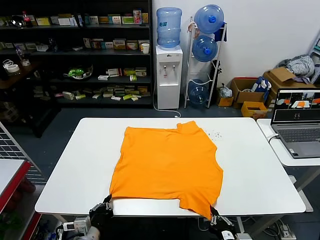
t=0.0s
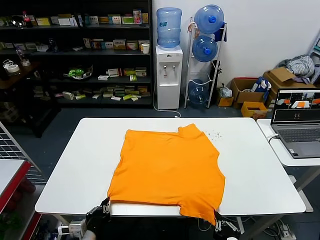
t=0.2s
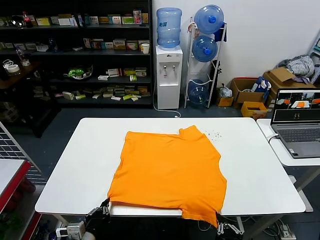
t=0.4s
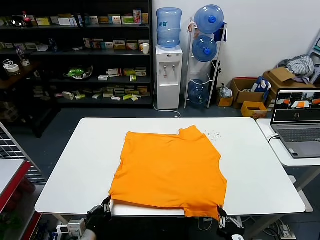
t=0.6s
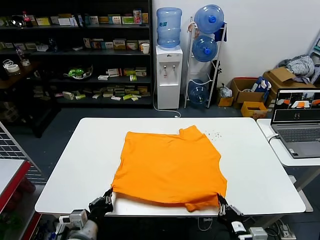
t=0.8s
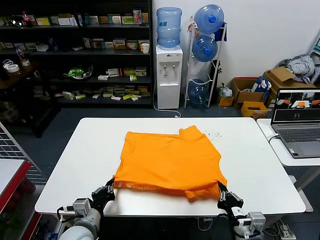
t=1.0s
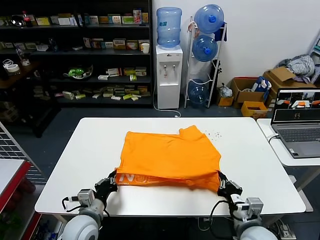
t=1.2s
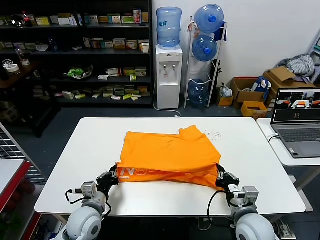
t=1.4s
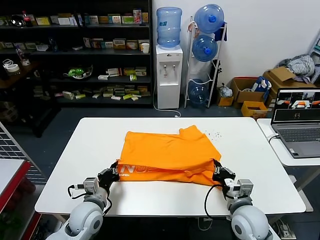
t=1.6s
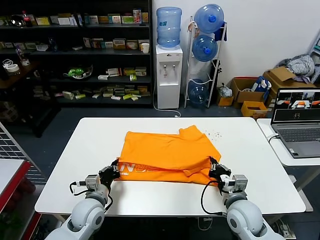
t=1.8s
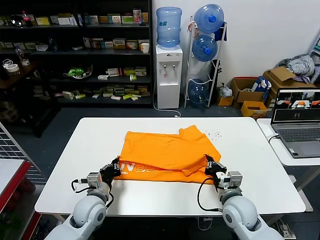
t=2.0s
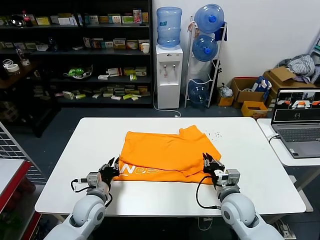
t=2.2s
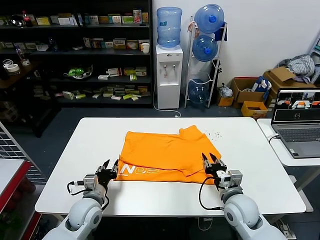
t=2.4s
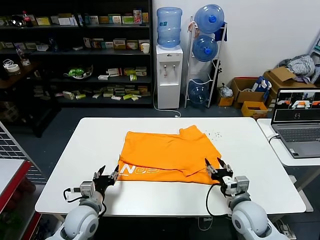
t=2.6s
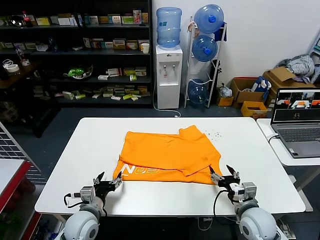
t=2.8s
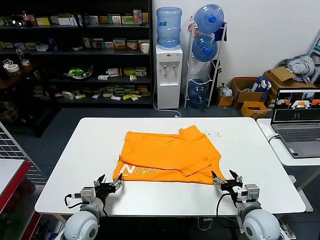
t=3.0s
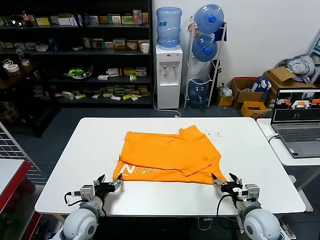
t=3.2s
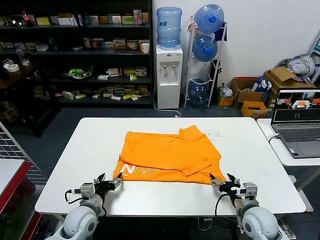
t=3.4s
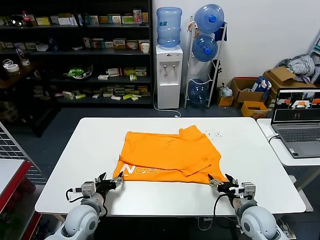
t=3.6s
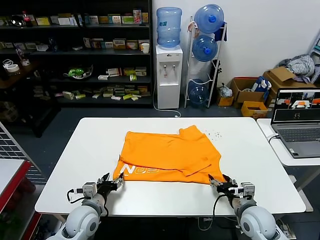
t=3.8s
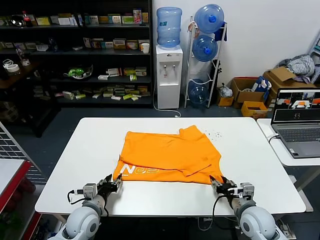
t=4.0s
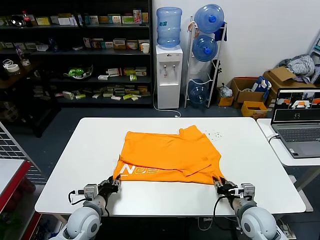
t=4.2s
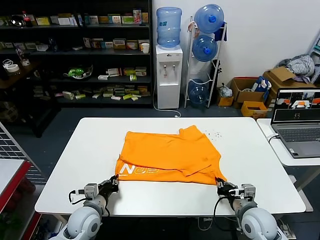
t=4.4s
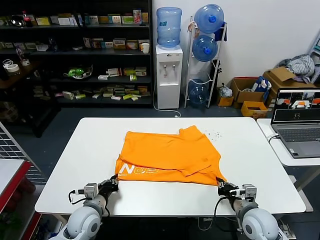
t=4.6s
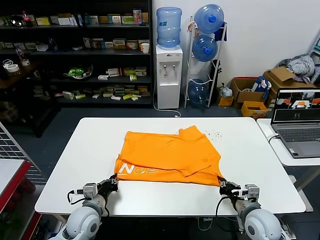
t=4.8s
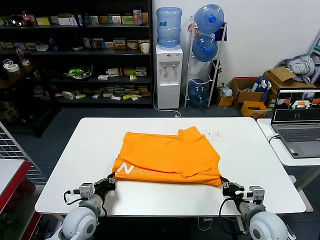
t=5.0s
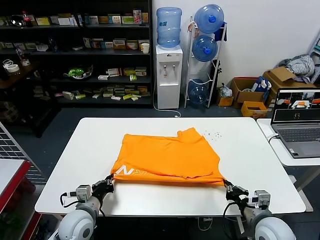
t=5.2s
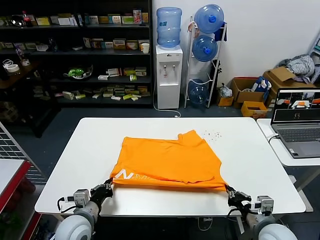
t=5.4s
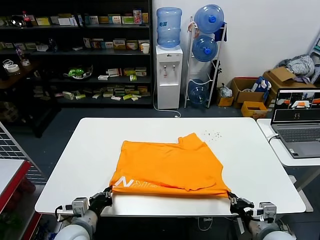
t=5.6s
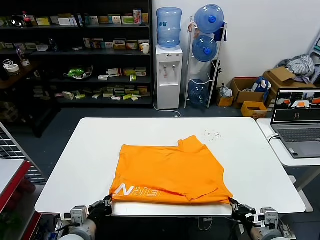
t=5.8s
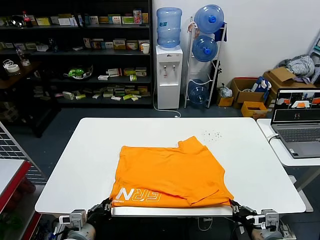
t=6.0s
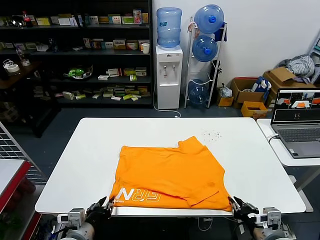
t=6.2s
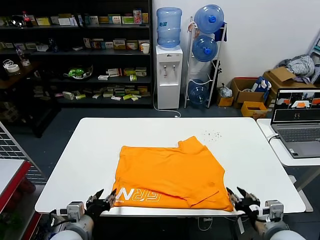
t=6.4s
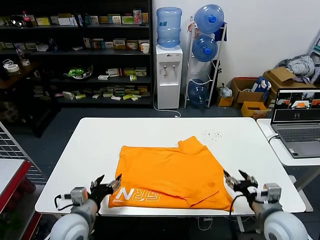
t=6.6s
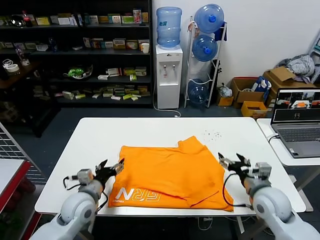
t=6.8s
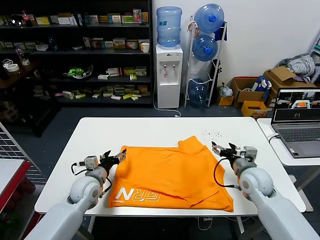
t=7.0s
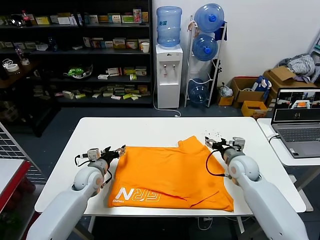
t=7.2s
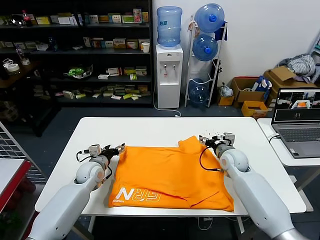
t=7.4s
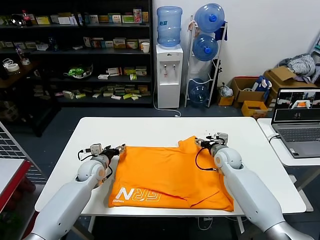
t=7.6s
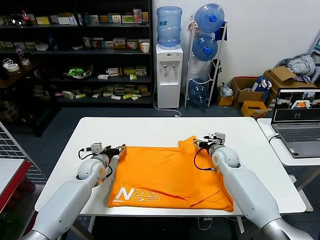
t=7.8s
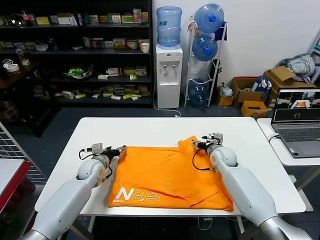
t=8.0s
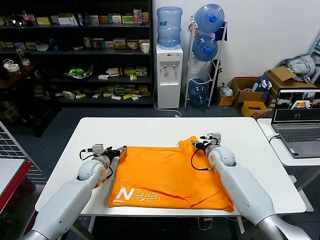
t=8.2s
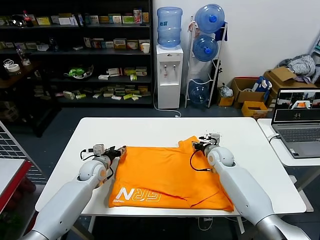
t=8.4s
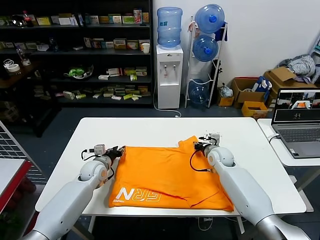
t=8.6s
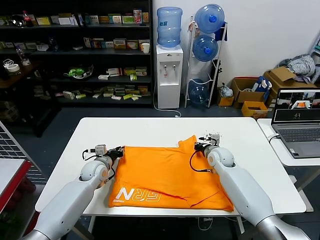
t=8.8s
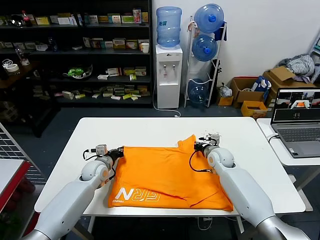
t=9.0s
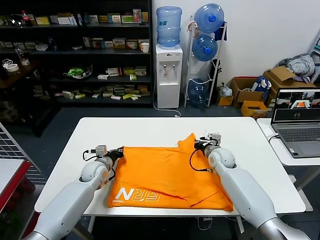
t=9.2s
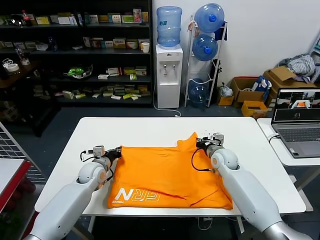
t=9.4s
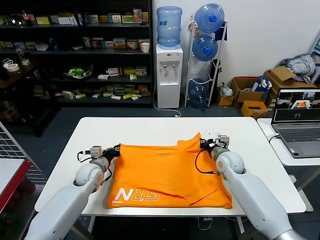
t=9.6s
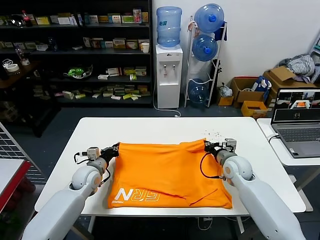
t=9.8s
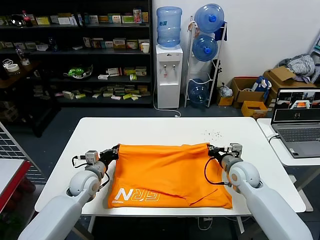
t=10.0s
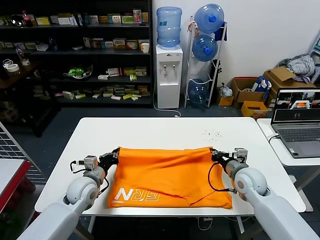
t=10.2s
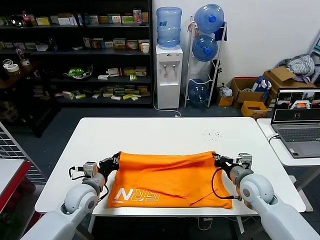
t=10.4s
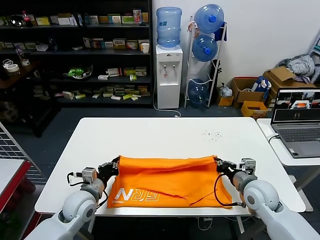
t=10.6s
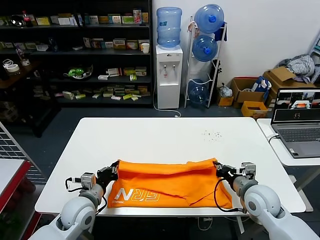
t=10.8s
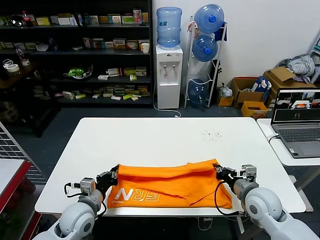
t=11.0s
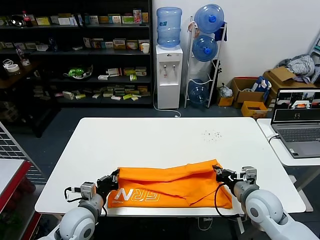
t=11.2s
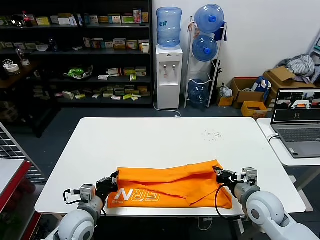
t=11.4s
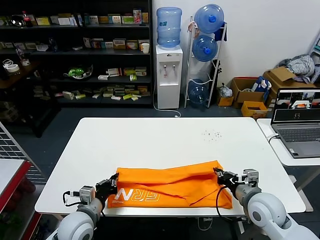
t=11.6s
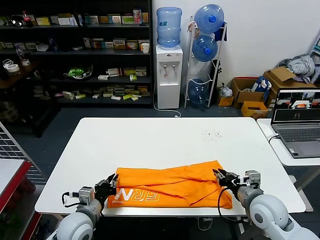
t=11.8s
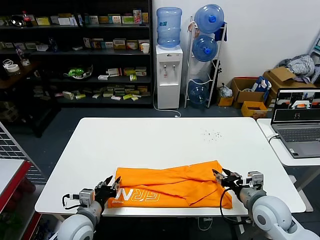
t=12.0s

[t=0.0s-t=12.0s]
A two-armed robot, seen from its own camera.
Task of the whole recording: fold and organize the clothes.
Step, t=0.0s to t=2.2s: use both grippers to drag the lower edge of the fabric forward and fold it over the upper edge.
Step, t=2.4s to t=6.2s: Drag the clothes downward with both gripper.
Step, t=6.4s to t=9.0s: use both grippers simultaneously to clamp the upper edge of the clothing fabric.
Step, t=9.2s to t=11.8s: use both grippers to drag the upper edge of the fabric backward and fold it over the lower edge.
t=0.0s to t=1.6s: The grippers both shift forward by some 15 cm.
t=1.6s to t=3.0s: The left gripper opens. The right gripper shifts about 5 cm to the right, and opens.
t=3.0s to t=4.4s: The right gripper closes; the left gripper closes.
t=4.4s to t=6.0s: The right gripper travels backward and upward by roughly 10 cm. The left gripper heads backward, covering about 10 cm.
t=6.0s to t=7.6s: The two grippers go roughly 30 cm forward. The right gripper opens its fingers. Meanwhile the left gripper opens up.
t=7.6s to t=9.0s: The left gripper closes its fingers; the right gripper closes.
t=9.0s to t=10.4s: The left gripper moves backward, roughly 10 cm. The right gripper heads backward and to the right, covering roughly 15 cm.
t=10.4s to t=12.0s: Both grippers move backward, roughly 10 cm. The left gripper opens its fingers. The right gripper opens.

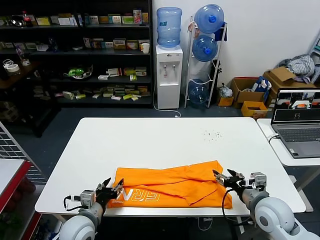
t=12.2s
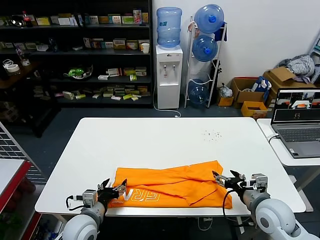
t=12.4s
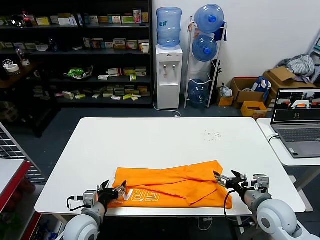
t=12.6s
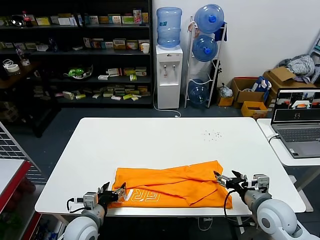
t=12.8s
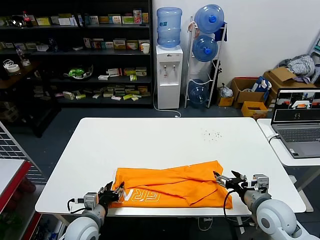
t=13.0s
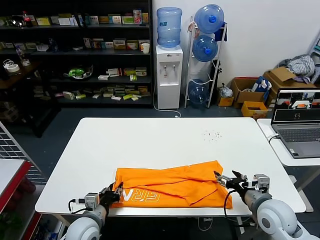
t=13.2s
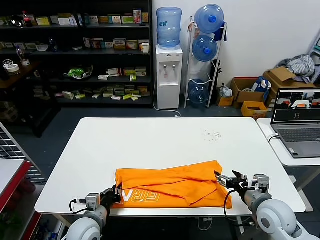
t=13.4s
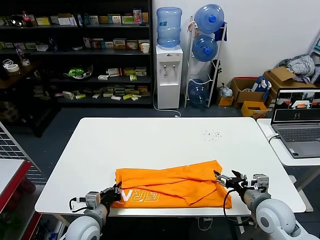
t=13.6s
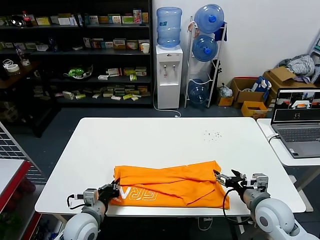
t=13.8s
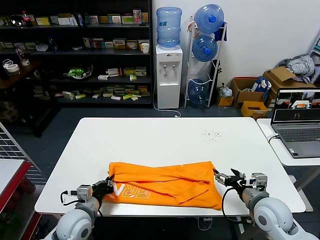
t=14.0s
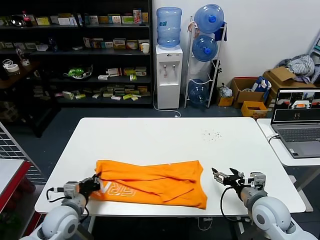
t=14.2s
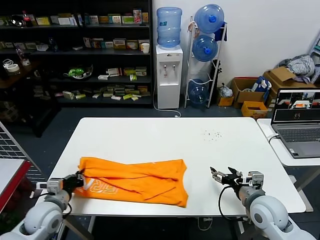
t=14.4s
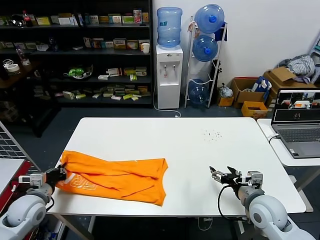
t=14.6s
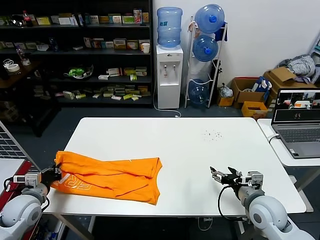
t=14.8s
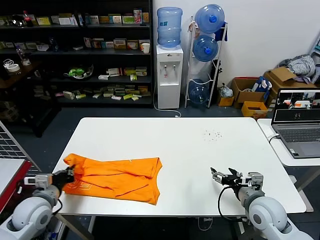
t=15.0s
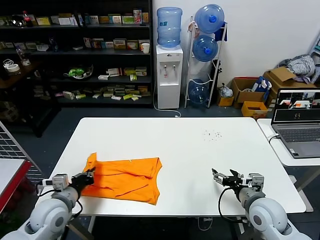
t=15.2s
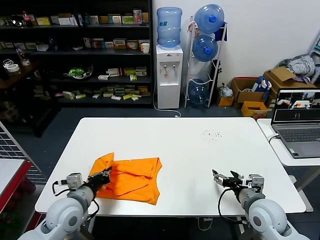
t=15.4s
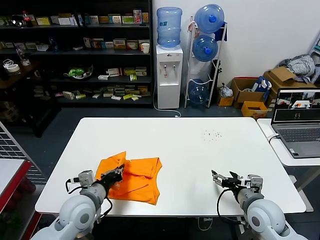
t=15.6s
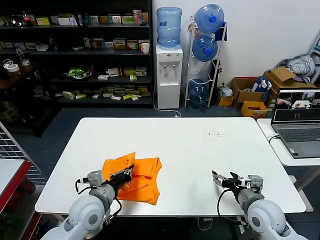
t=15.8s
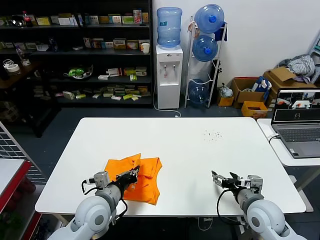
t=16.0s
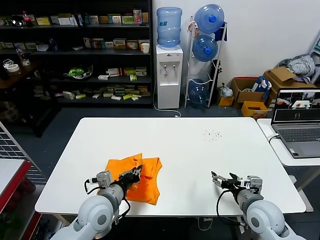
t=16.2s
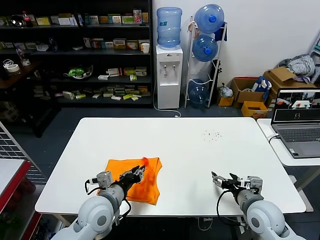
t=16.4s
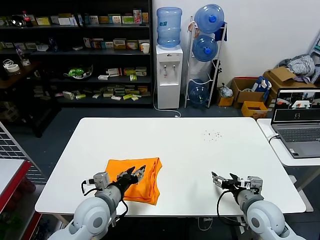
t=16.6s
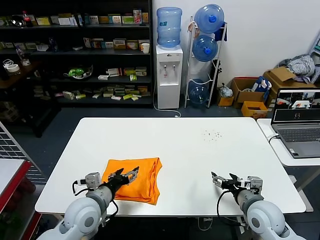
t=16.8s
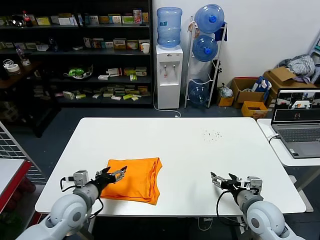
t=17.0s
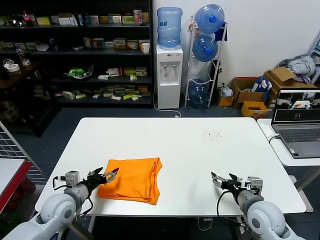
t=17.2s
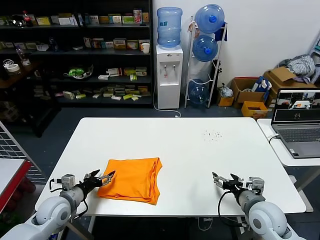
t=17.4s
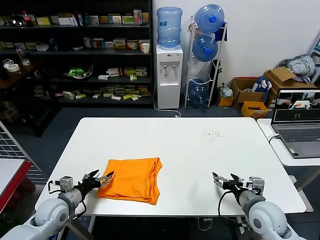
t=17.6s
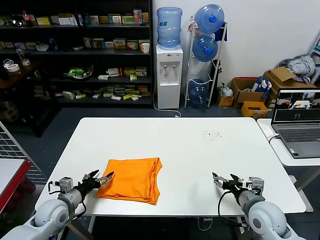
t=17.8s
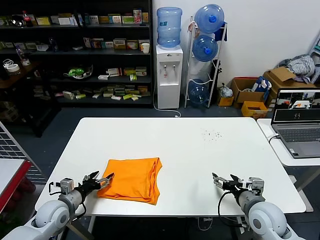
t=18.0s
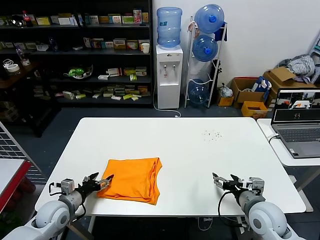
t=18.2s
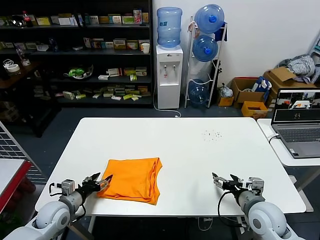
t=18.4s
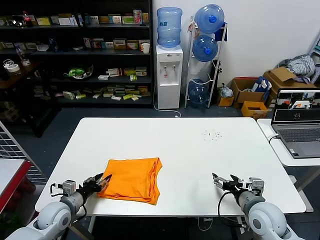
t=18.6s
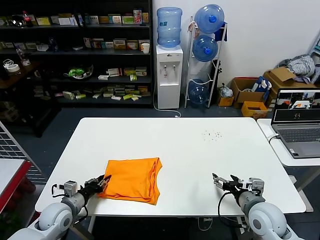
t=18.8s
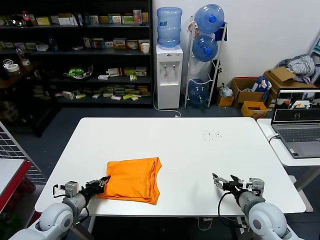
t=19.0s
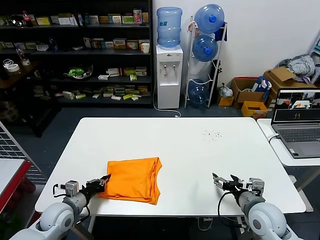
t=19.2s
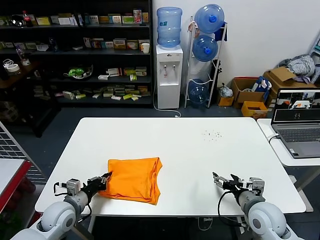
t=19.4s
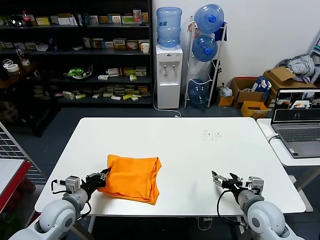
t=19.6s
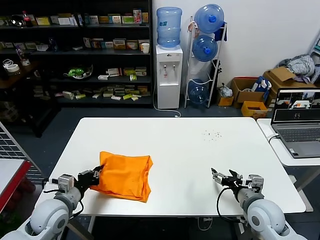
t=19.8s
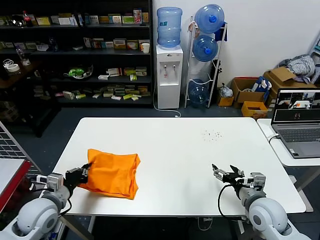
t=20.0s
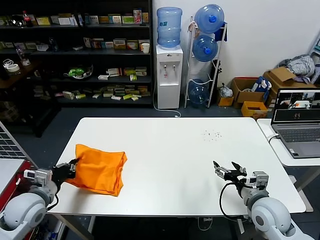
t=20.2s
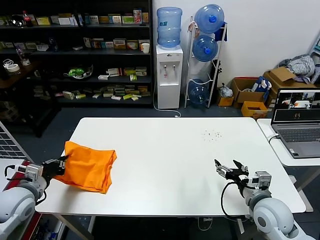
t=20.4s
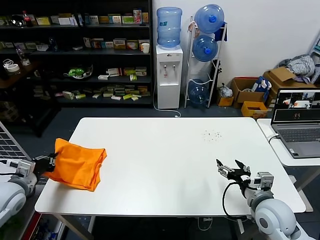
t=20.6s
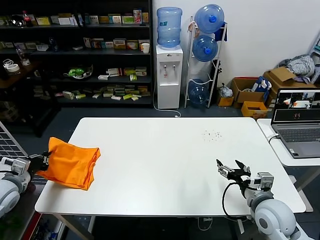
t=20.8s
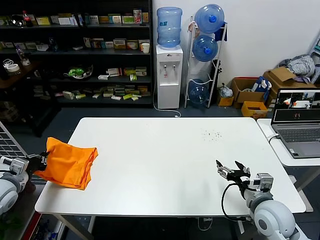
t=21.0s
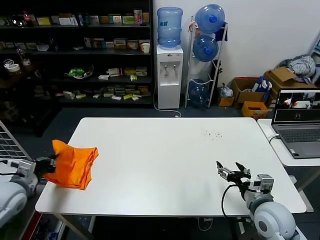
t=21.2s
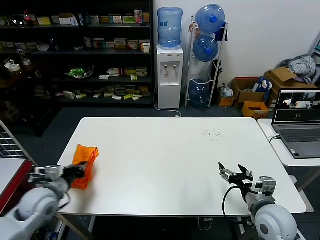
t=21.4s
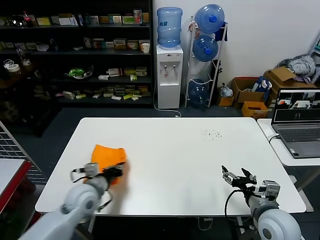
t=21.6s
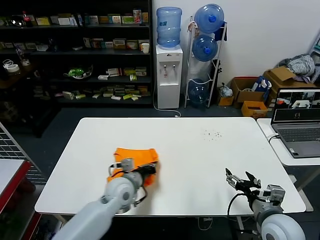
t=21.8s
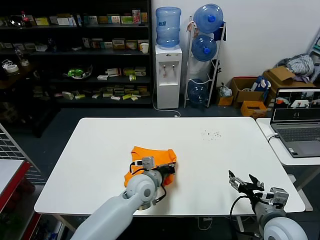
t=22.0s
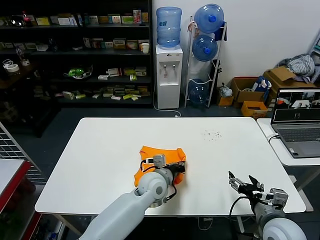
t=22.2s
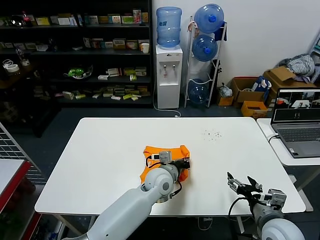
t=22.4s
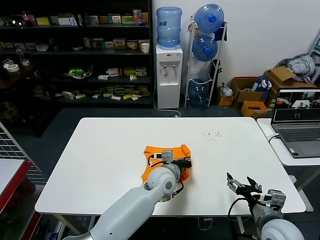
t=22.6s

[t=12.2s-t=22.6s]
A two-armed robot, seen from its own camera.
Task of the whole recording: fold and organize the clothes.
Step, t=12.2s to t=13.4s: use the left gripper to clamp the left edge of the fabric.
Step, t=13.6s to t=16.4s: use the left gripper to drag the left edge of the fabric to the left and folds it over the right edge.
t=12.2s to t=13.6s: The left gripper closes its fingers.
t=13.6s to t=15.2s: The left gripper travels to the left and upward by approximately 10 cm.
t=15.2s to t=16.6s: The left gripper heads to the right, covering approximately 15 cm, and opens.
t=16.6s to t=18.2s: The left gripper goes approximately 20 cm to the left and downward, and opens up.
t=18.2s to t=19.6s: The left gripper shifts by some 5 cm, and closes its fingers.
t=19.6s to t=21.2s: The left gripper is displaced to the left and upward by about 15 cm.
t=21.2s to t=22.6s: The left gripper shifts approximately 50 cm to the right.
